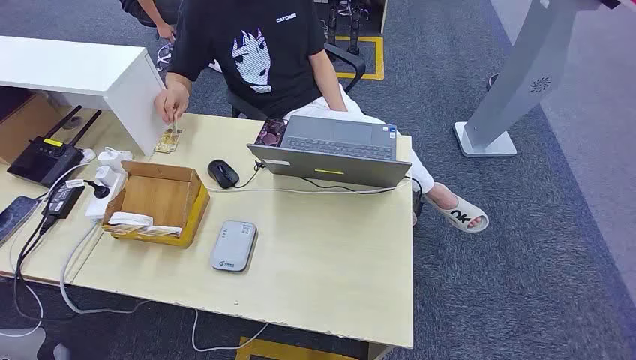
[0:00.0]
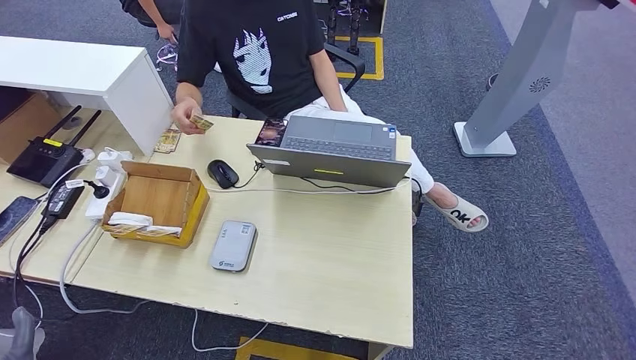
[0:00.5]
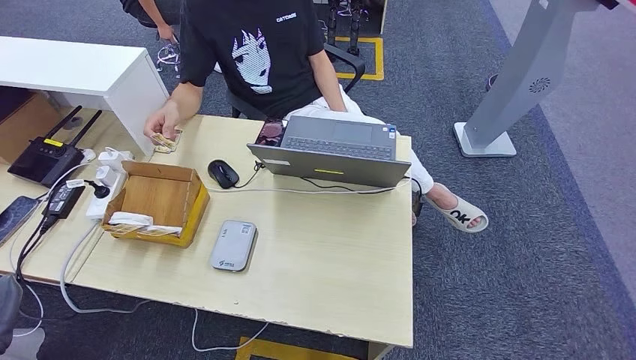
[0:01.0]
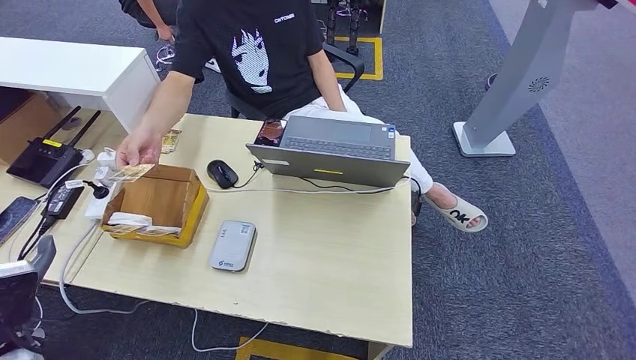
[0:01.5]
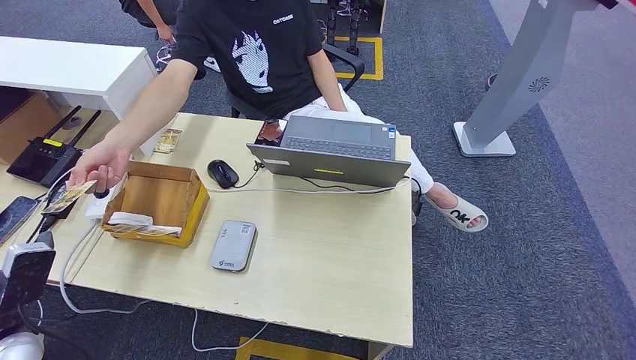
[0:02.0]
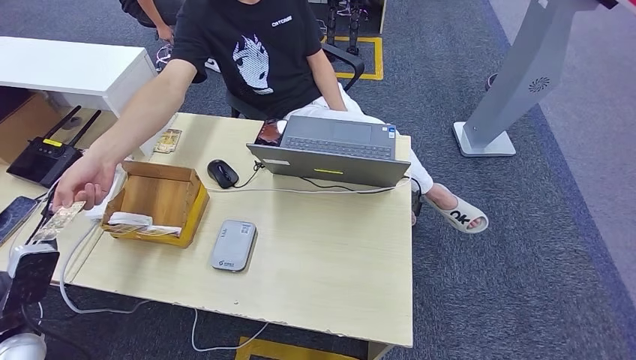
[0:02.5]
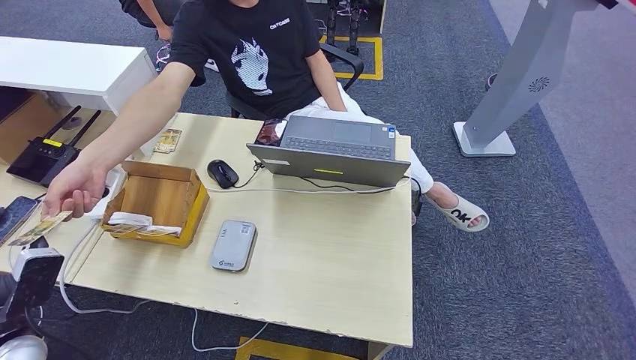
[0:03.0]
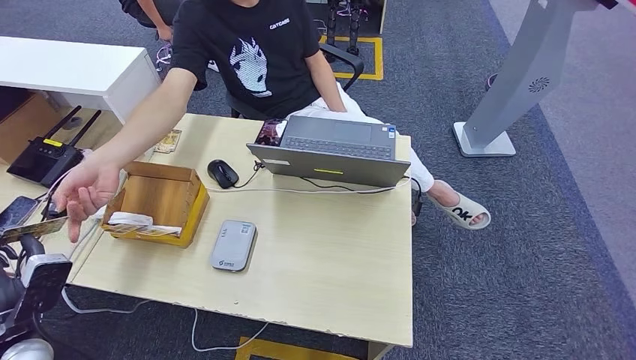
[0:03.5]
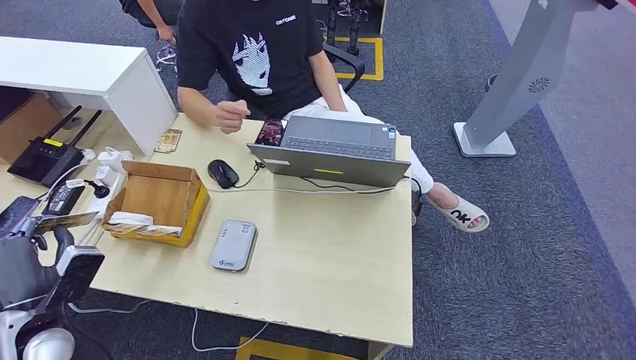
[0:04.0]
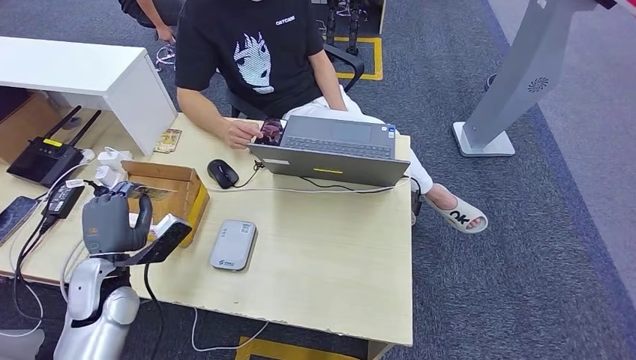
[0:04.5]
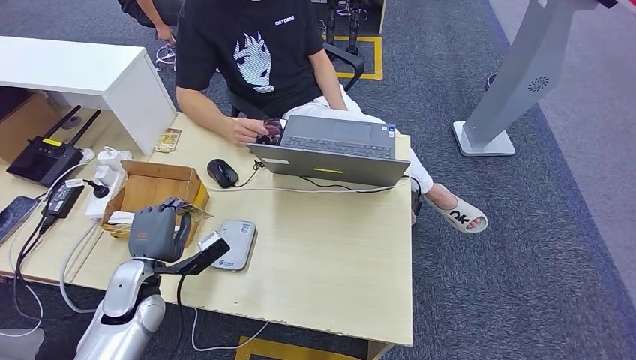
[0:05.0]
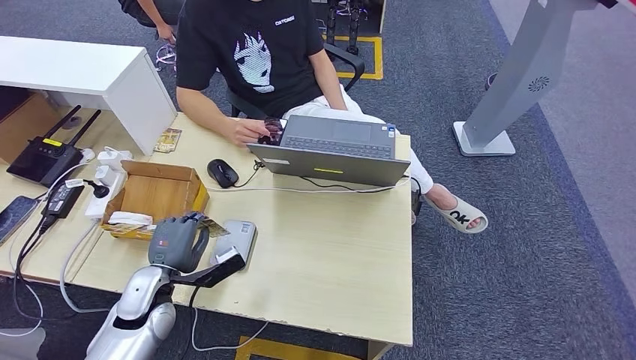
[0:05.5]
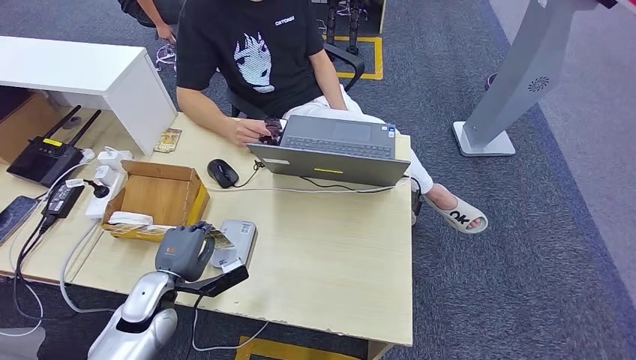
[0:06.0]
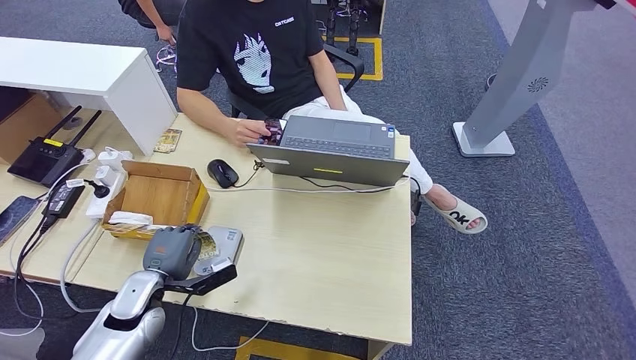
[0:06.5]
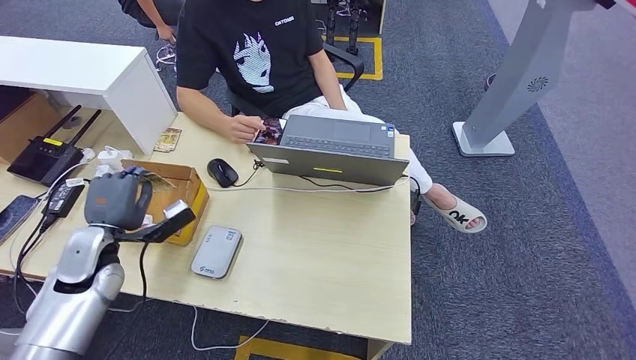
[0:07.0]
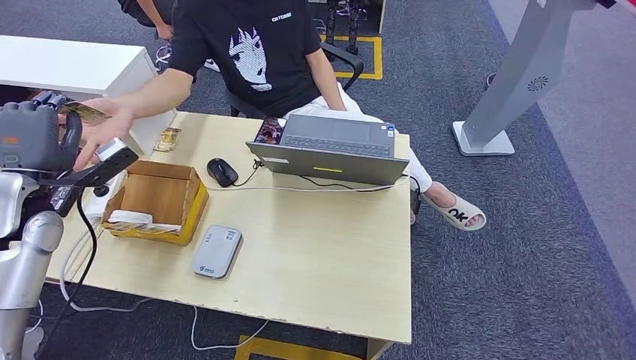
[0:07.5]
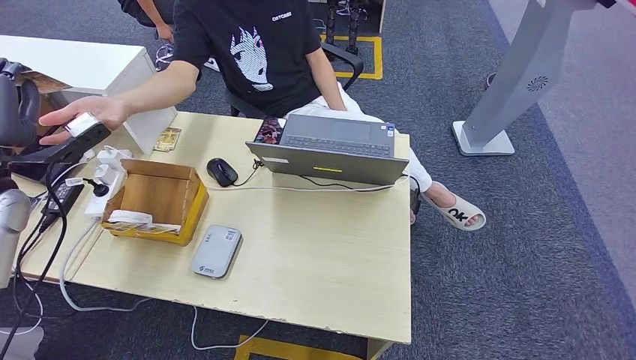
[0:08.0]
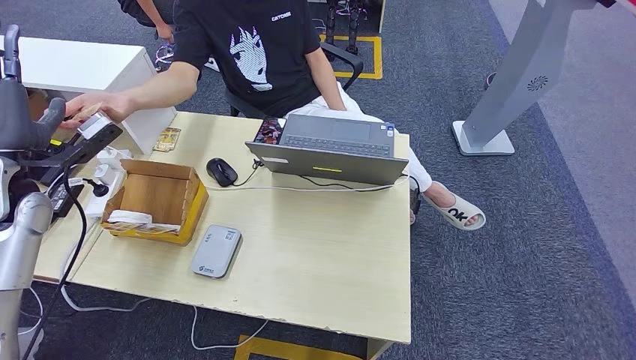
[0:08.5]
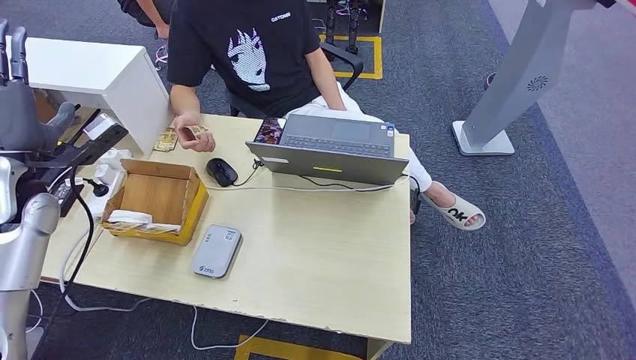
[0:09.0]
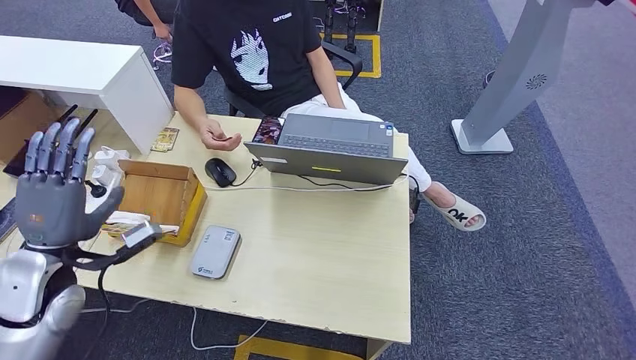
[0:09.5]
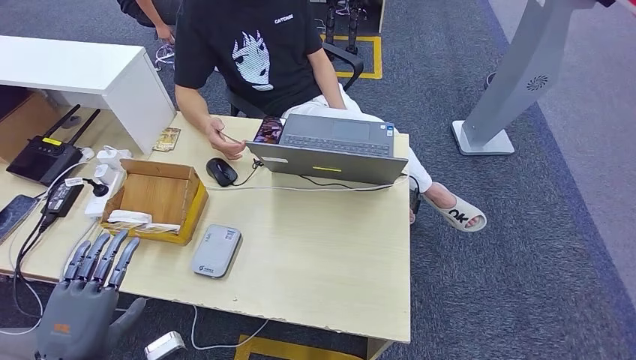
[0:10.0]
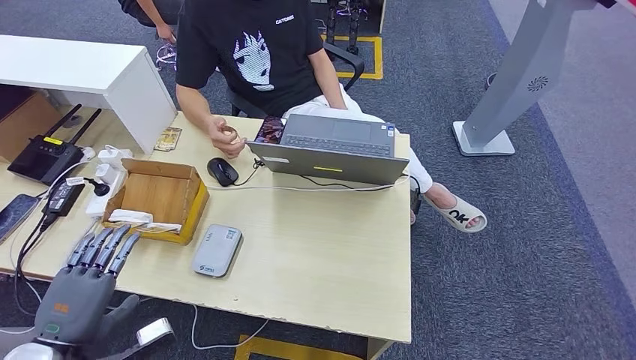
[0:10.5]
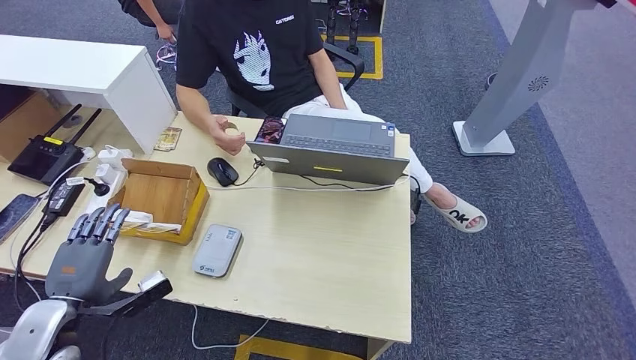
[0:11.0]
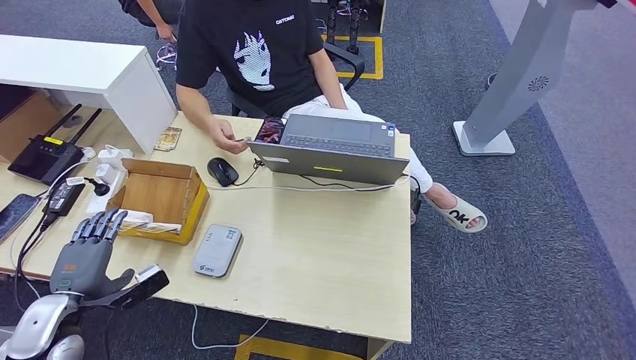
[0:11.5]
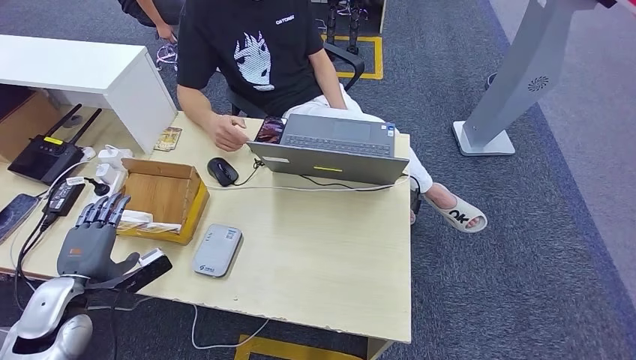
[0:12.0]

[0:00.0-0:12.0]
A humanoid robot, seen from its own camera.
Step, 0:00.0 to 0:04.0: Take the ID card from the person's hand.
Step, 0:05.0 to 0:06.5: Place the ID card on the card reader.
Step, 0:07.5 to 0:09.0: Hand the ID card to the person.
0:02.0 to 0:04.0: The hands stay close to where they were, moving slightly.
0:04.0 to 0:06.0: The left hand heads to the right, forward and downward, covering some 15 cm.
0:06.0 to 0:08.0: The left hand goes about 30 cm upward and to the left.
0:08.0 to 0:10.0: The left hand heads backward, downward and to the right, covering roughly 30 cm.
0:10.0 to 0:12.0: The left hand shifts about 15 cm forward and to the left.

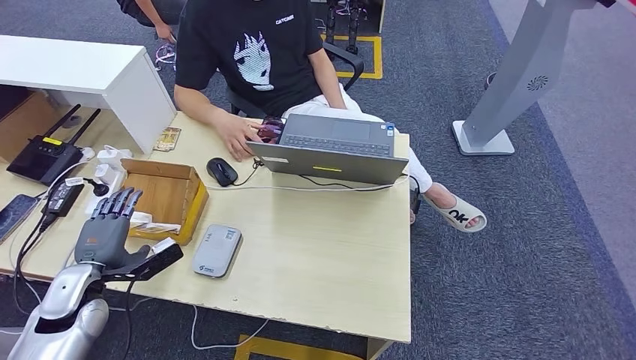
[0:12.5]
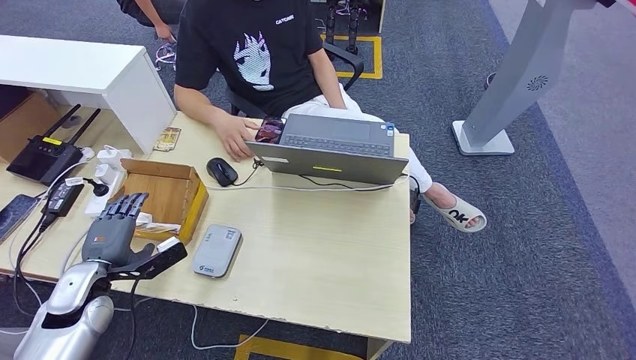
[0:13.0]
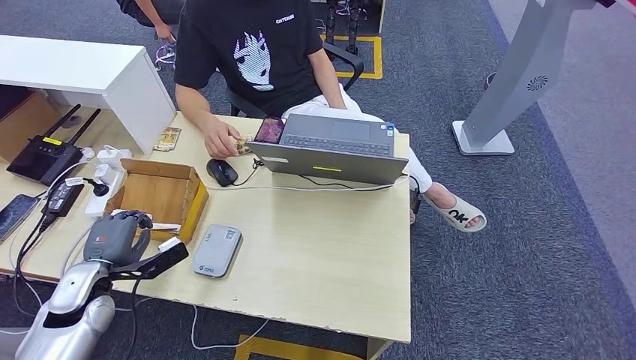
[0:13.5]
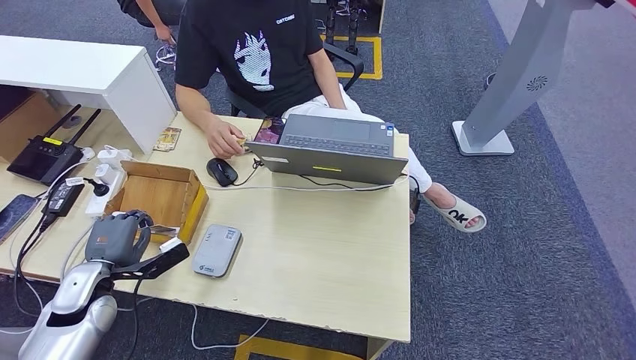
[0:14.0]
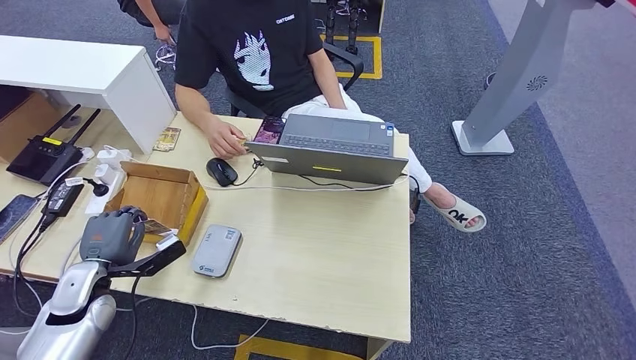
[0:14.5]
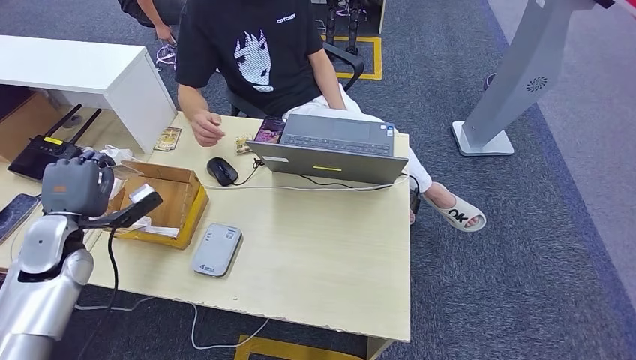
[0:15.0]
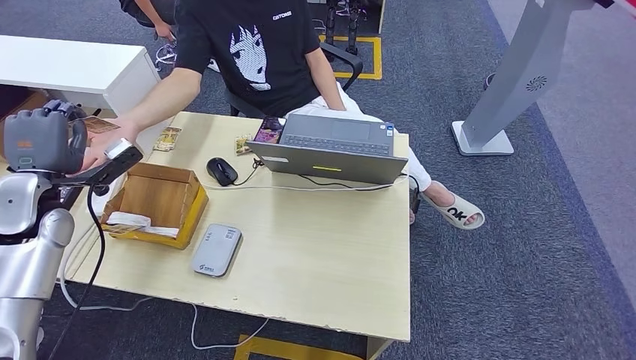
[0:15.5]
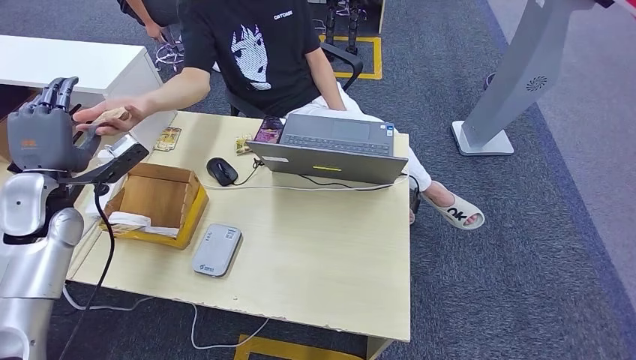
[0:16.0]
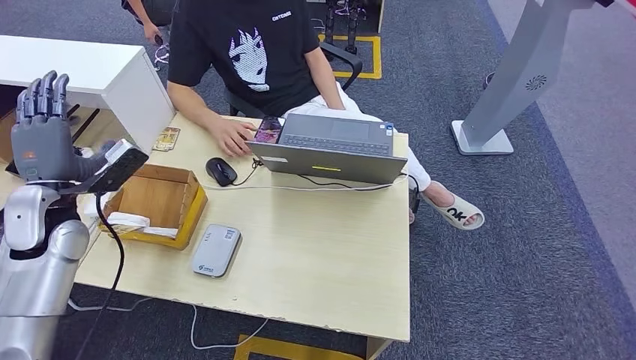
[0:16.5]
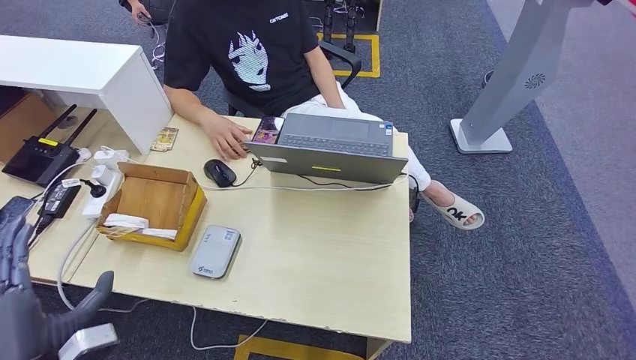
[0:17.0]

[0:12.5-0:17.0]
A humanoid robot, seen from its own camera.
Step, 0:13.5 to 0:15.0: Pick up the room key from the key card box.
Step, 0:15.5 to 0:17.0: Hand the room key to the person.
0:12.5 to 0:14.5: The hands move only a little.
0:14.5 to 0:17.0: The left hand moves backward and upward, roughly 15 cm.

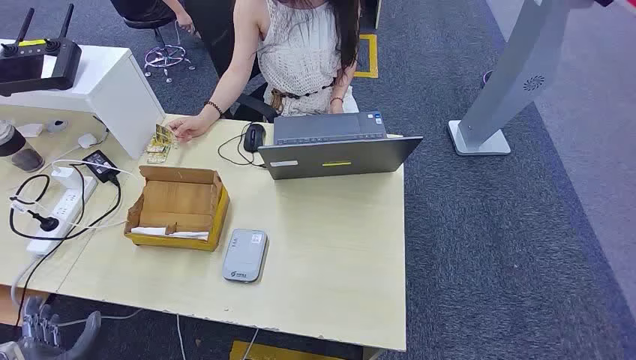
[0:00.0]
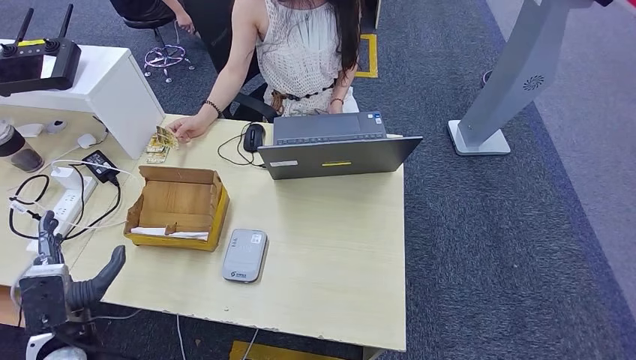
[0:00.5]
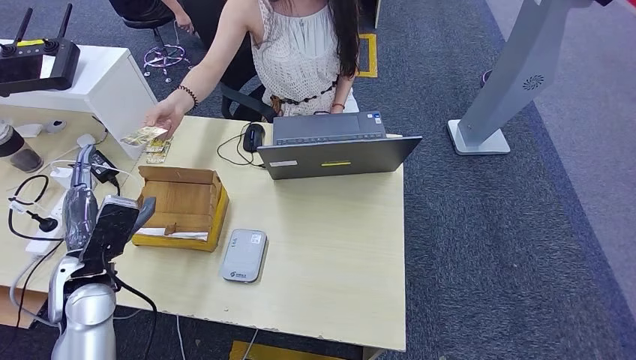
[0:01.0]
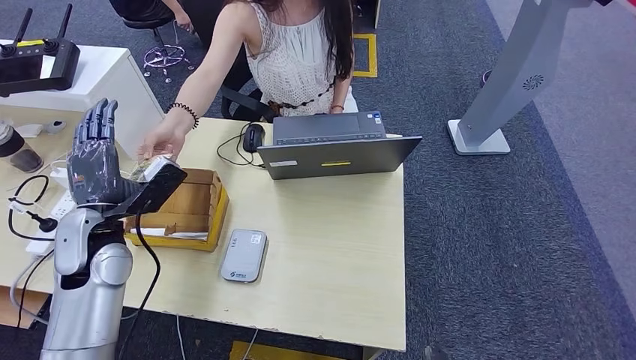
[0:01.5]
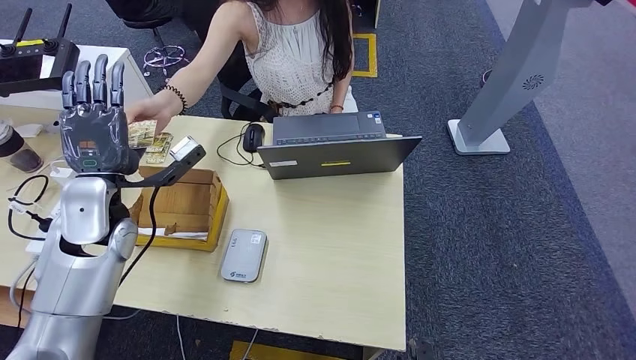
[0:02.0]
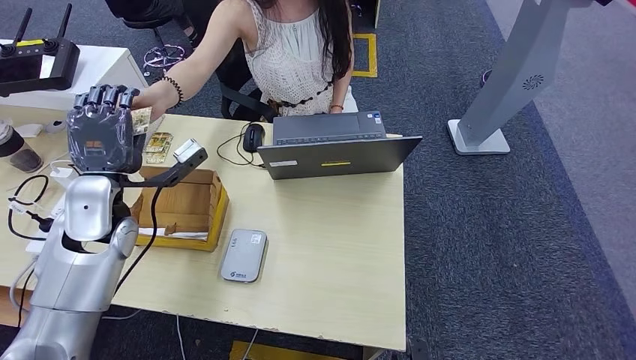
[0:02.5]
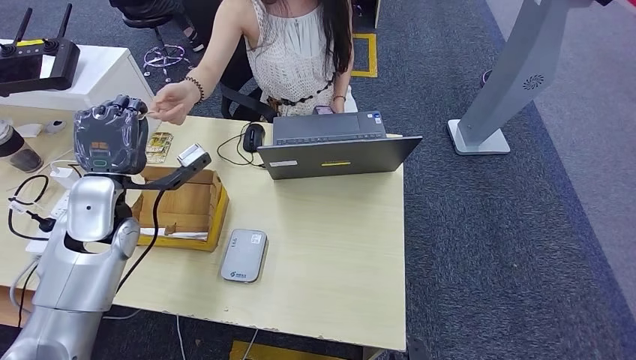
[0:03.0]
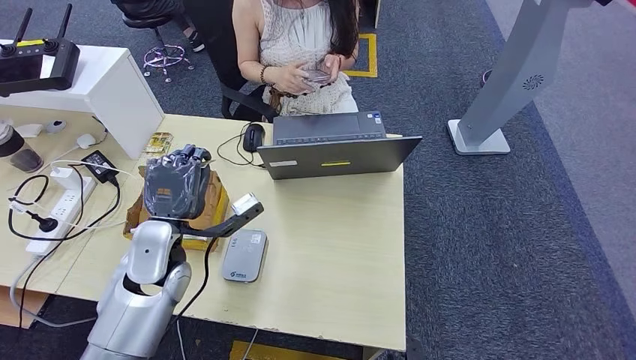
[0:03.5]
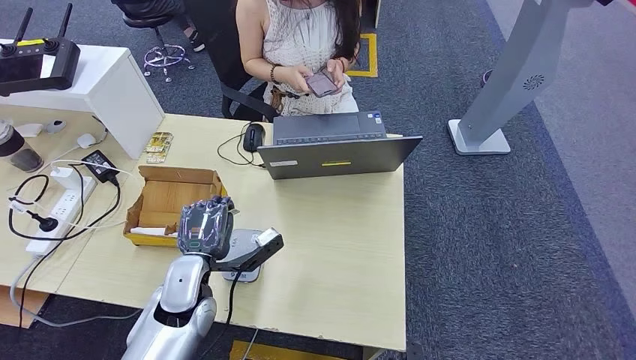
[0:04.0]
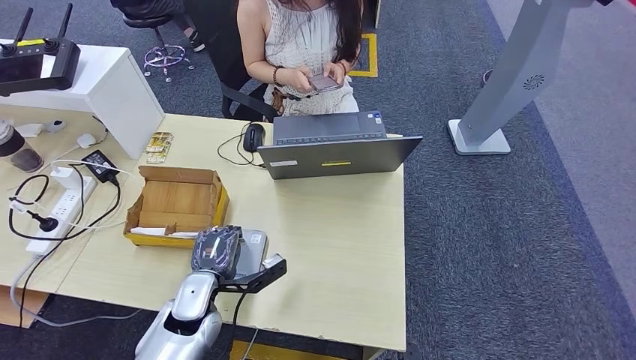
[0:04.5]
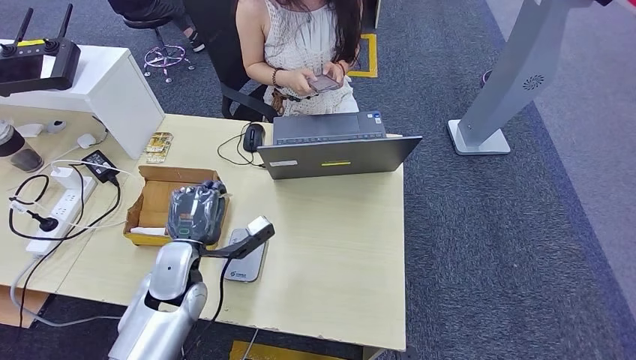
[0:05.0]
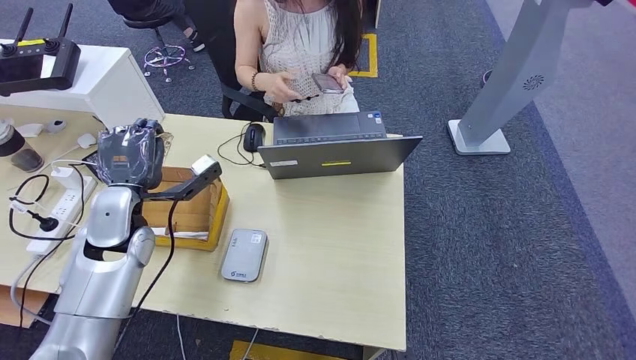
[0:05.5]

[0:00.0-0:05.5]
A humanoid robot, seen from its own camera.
Step, 0:00.0 to 0:03.0: Take the ID card from the person's hand.
Step, 0:03.5 to 0:05.5: Place the ID card on the card reader.
0:03.5 to 0:05.5: The left hand heads to the left, covering approximately 5 cm, and moves about 10 cm downward and comes back.
